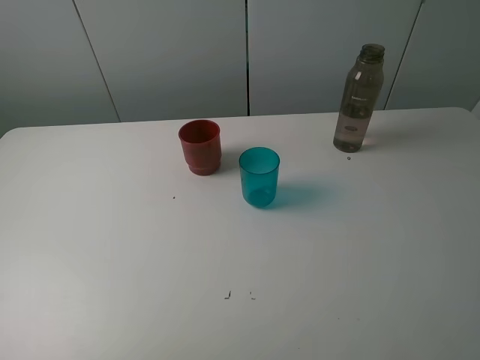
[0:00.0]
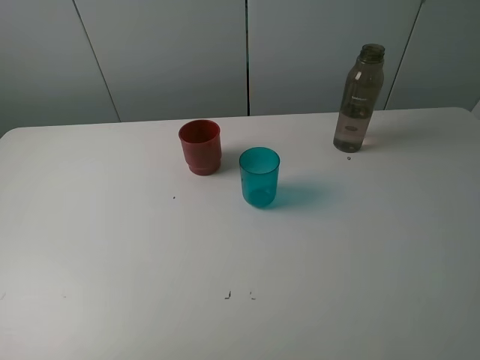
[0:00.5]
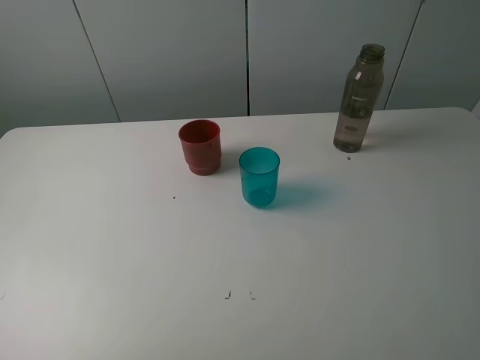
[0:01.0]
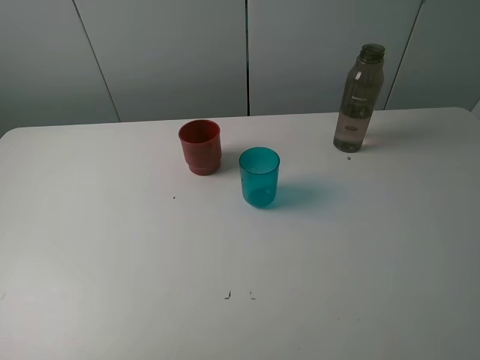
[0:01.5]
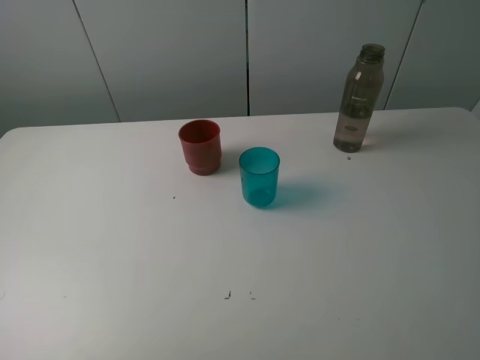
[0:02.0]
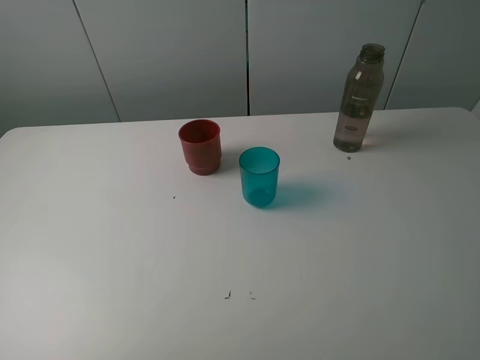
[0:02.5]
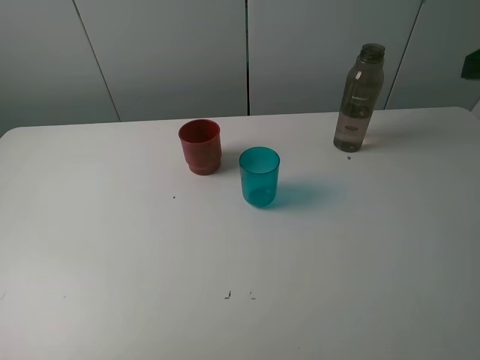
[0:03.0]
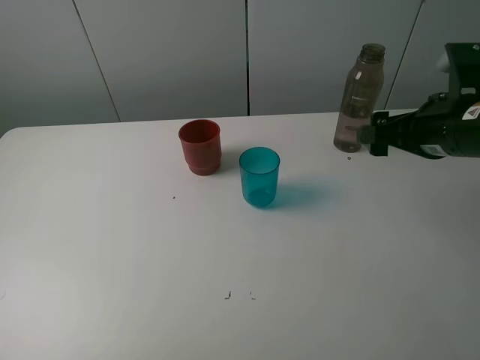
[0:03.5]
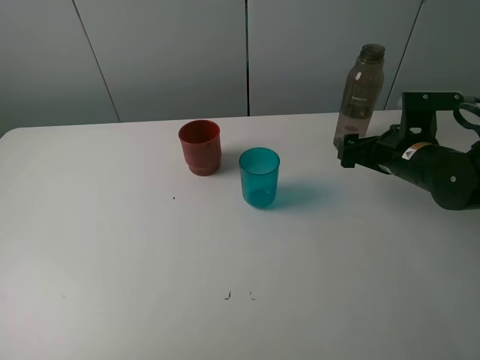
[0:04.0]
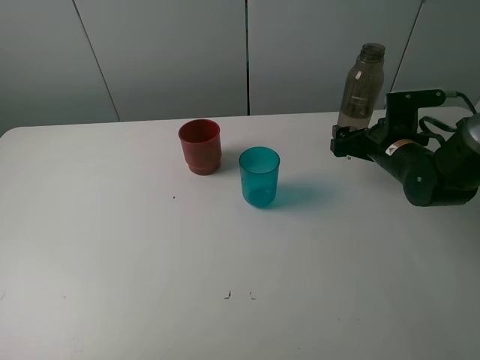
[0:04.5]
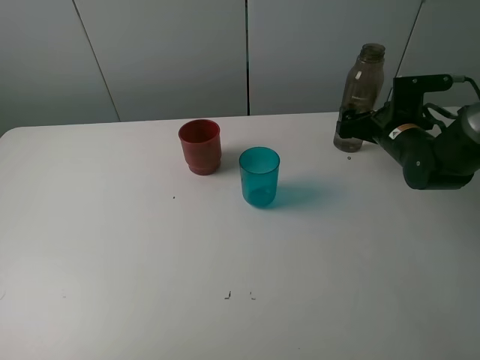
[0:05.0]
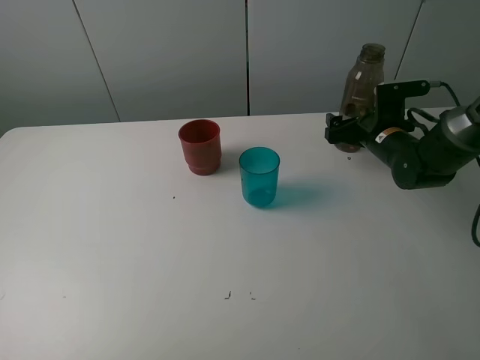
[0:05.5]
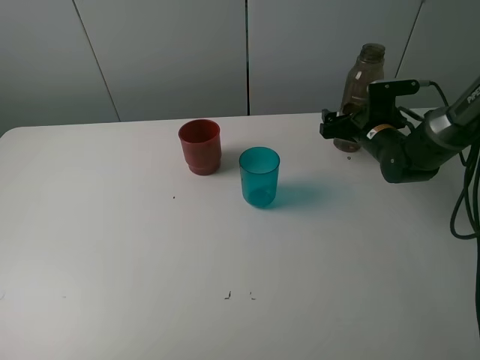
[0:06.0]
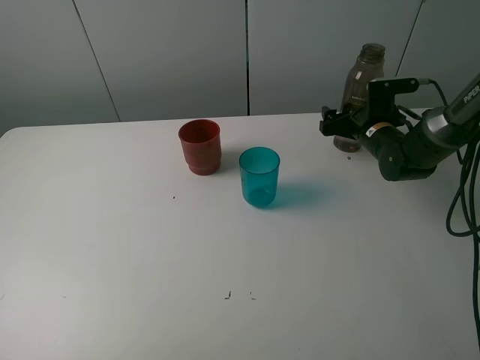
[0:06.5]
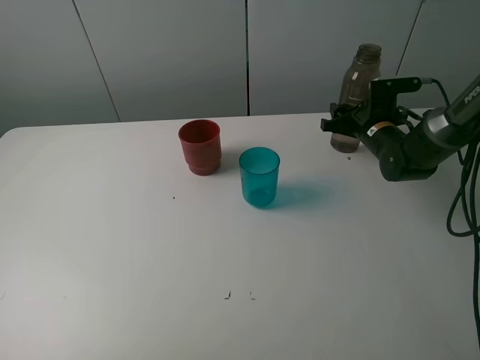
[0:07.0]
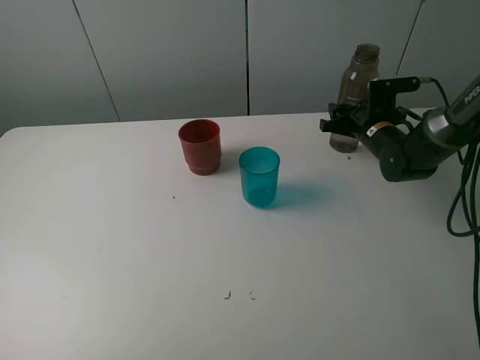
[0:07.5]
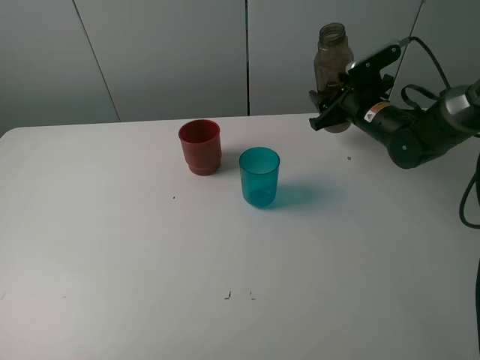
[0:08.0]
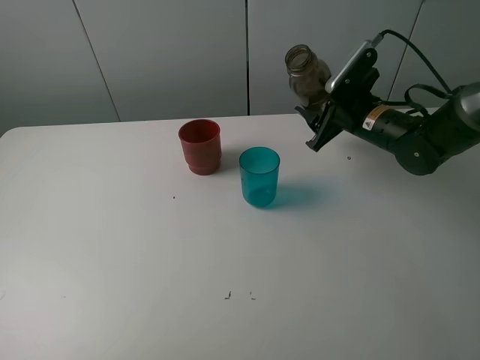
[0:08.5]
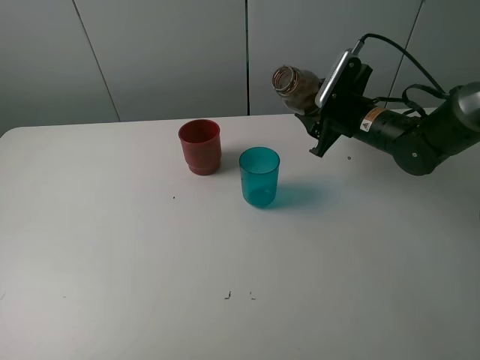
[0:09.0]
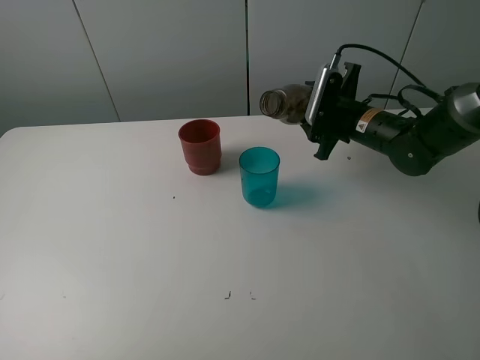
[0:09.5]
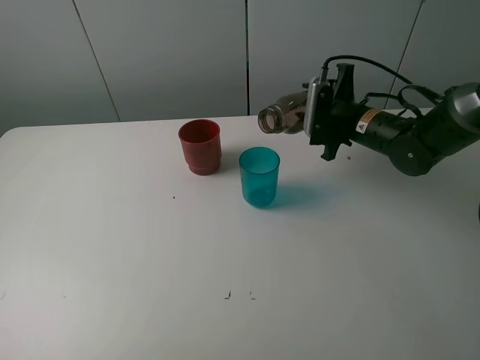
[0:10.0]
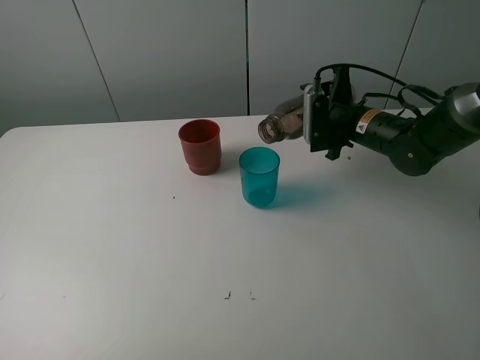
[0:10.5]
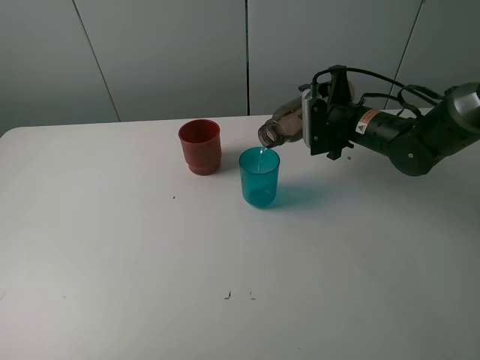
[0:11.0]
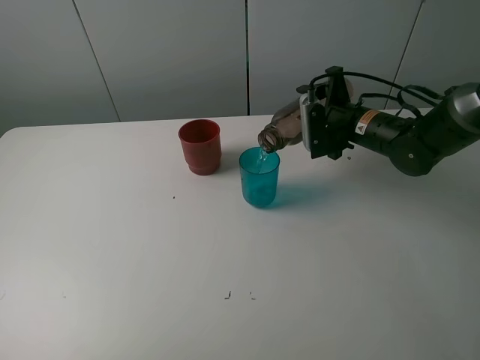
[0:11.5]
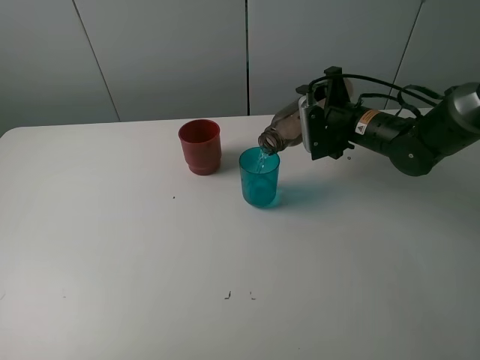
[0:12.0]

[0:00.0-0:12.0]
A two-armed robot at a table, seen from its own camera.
Task of the whole recording: pick up the bottle and pour water into the cup, then pick up the cup containing water and pour it into another cup.
Step, 0:00.0 to 0:07.0: Grasp the brown bottle with the right gripper.
0:00.0 to 0:02.0: Neither gripper changes place.
0:02.0 to 0:04.0: The right gripper heads forward and downward, covering about 35 cm.
0:04.0 to 0:06.0: The right gripper goes roughly 10 cm forward.
0:06.0 to 0:08.0: The right gripper closes its fingers.
0:10.0 to 0:12.0: The grippers stay close to where they were, moving slightly.

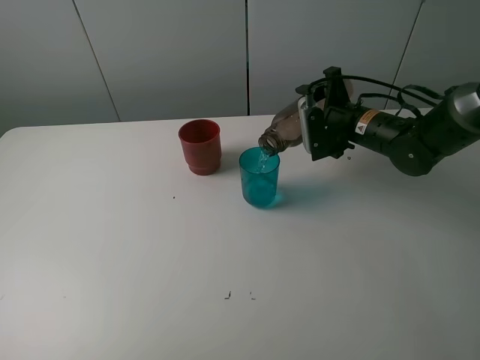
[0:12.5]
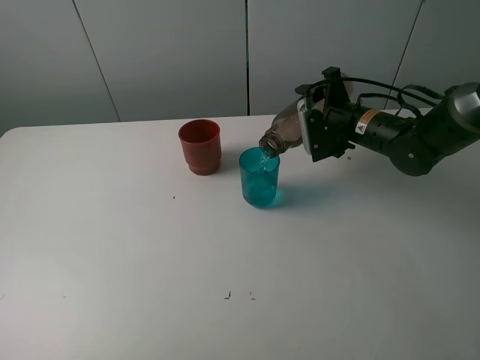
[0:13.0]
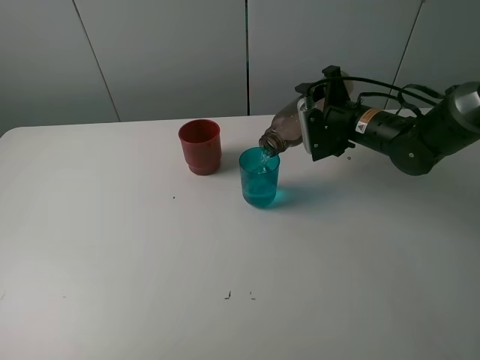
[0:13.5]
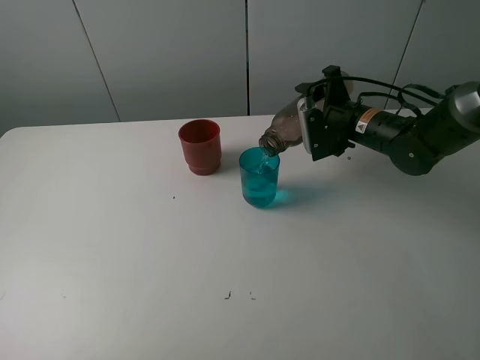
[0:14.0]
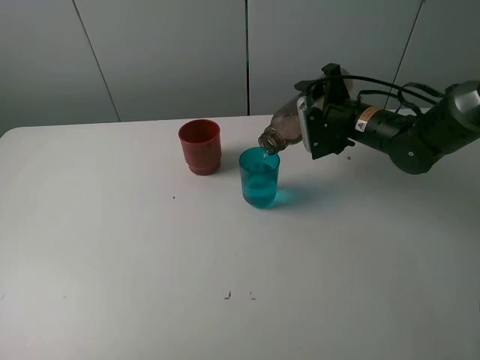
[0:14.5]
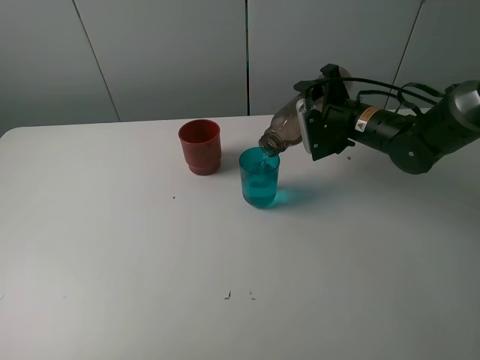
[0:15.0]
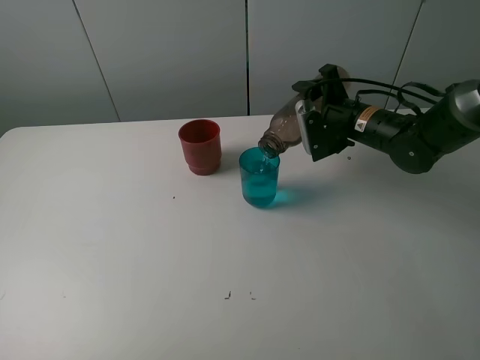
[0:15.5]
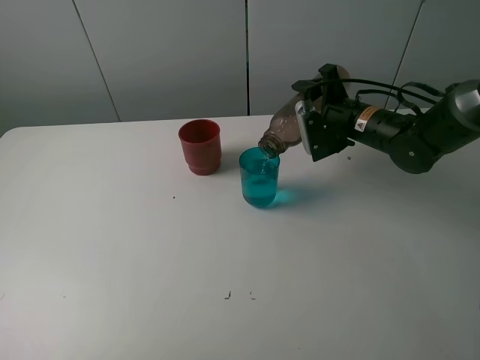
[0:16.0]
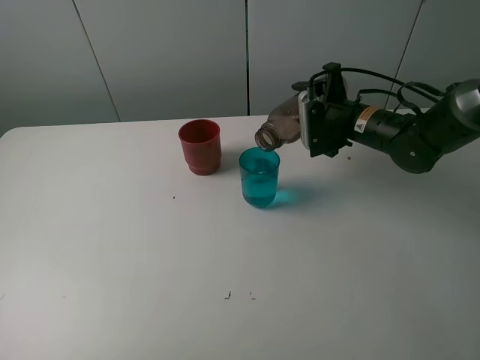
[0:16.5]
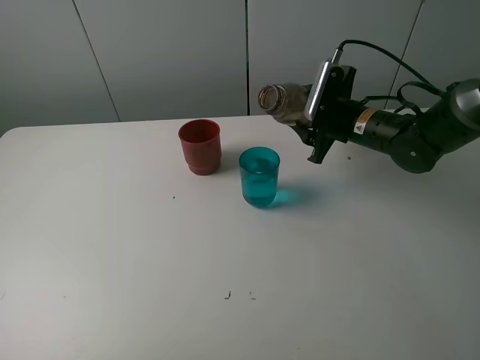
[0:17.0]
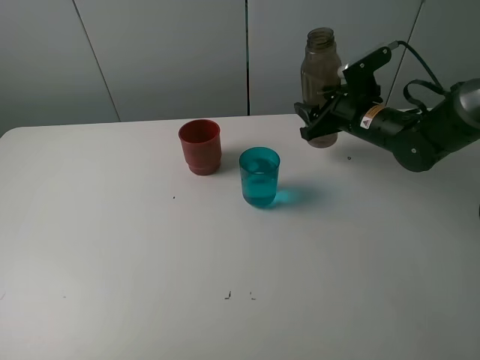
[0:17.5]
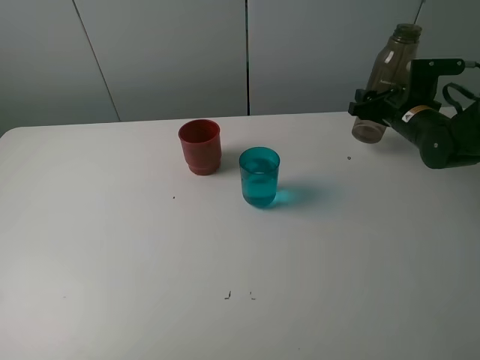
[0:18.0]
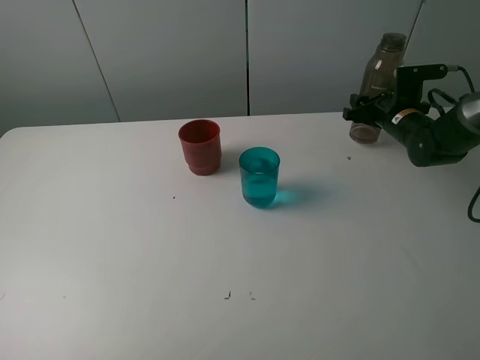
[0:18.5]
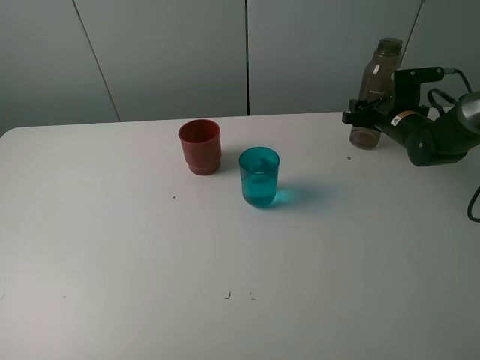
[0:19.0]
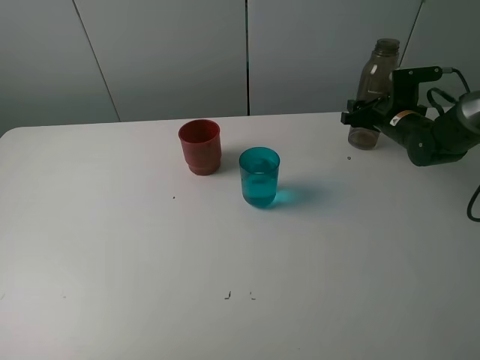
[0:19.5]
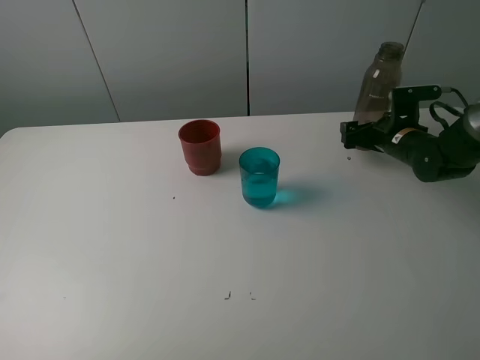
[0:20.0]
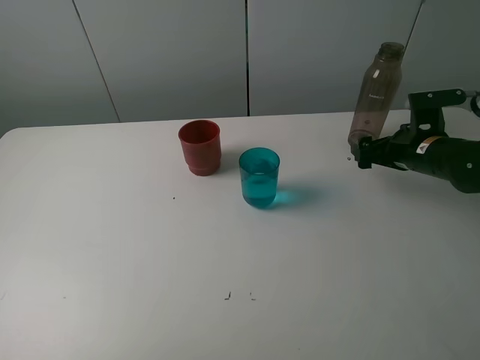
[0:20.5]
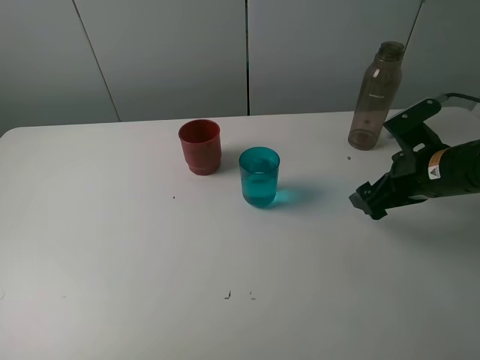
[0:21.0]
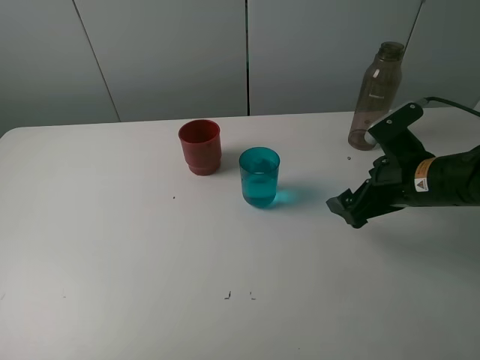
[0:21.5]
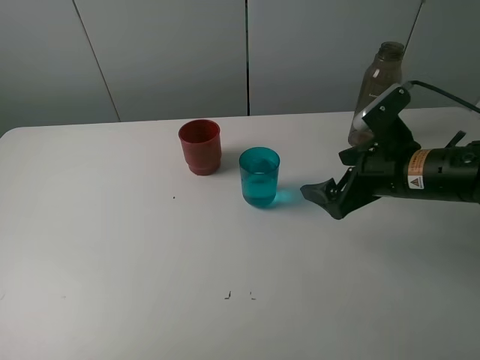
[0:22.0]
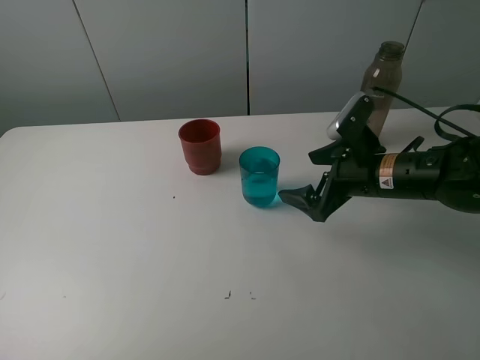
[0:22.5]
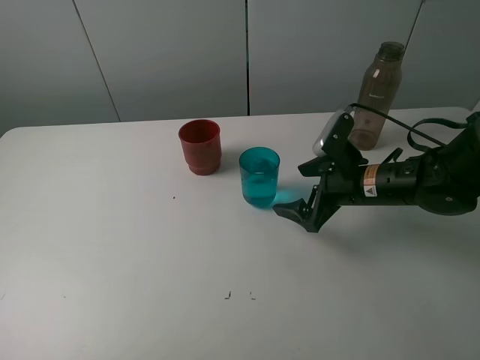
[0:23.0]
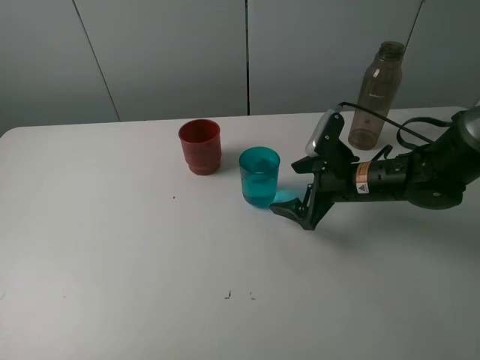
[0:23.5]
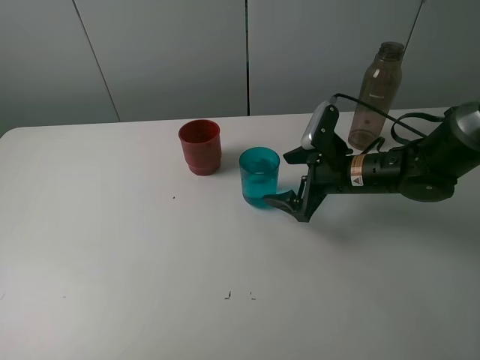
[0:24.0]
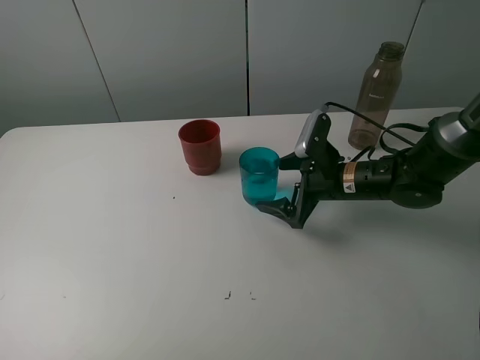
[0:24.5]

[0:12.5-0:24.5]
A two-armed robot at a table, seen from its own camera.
Task of the whole recording: pick up the bottle and pour water into the cup, then pick up the cup containing water and pour it into another cup.
Step, 0:12.5 to 0:16.5: Pour water from brown bottle to blue cup with the right gripper.
Step, 0:17.0 to 0:19.5: Place the brown bottle with the right gripper.
0:12.5 to 0:14.5: Both grippers stay put.
0:14.5 to 0:16.5: There are only small adjustments of the grippers.
0:16.5 to 0:18.5: The right gripper heads to the right and forward, covering approximately 10 cm.
0:18.5 to 0:20.5: The right gripper heads backward, covering roughly 10 cm, and opens up.
0:20.5 to 0:22.5: The right gripper goes approximately 10 cm to the left.
0:22.5 to 0:24.5: The right gripper ends up approximately 5 cm from where it was.

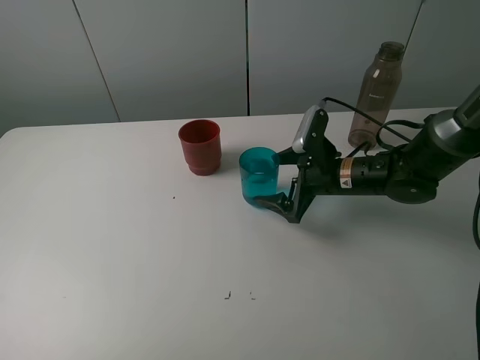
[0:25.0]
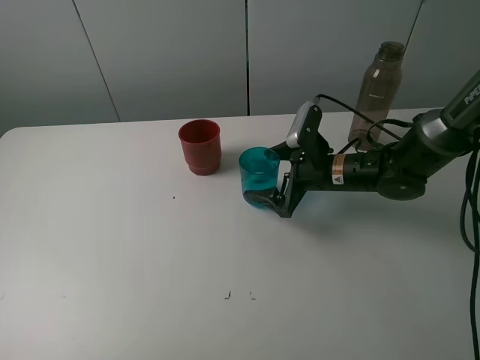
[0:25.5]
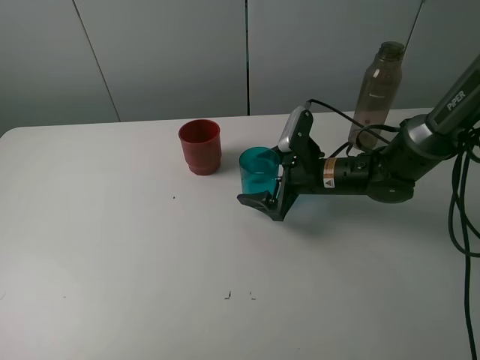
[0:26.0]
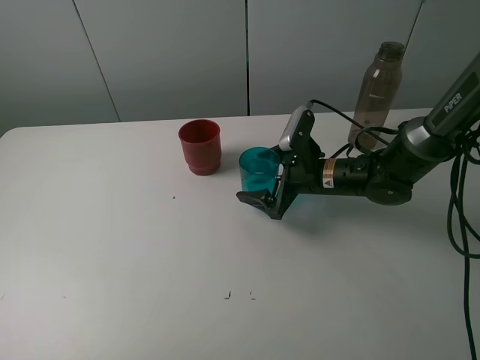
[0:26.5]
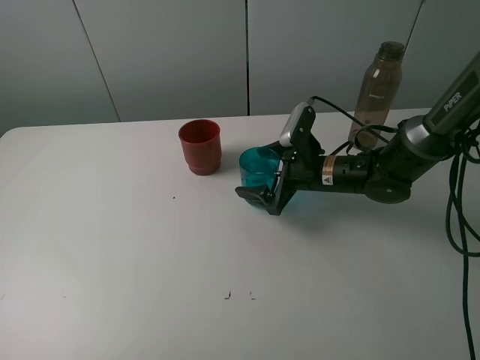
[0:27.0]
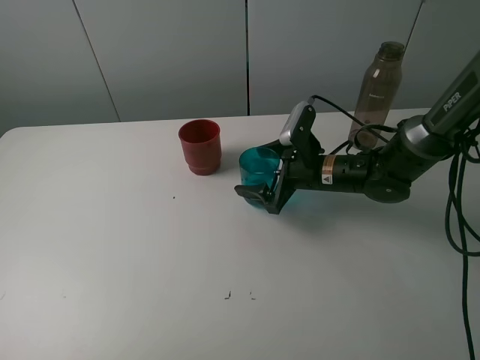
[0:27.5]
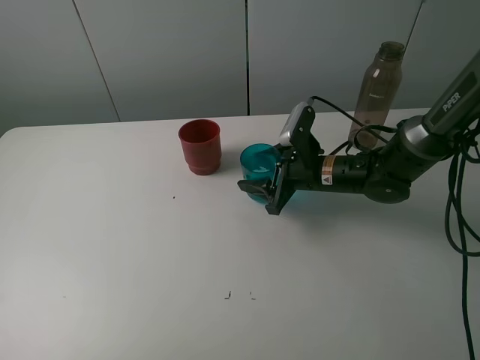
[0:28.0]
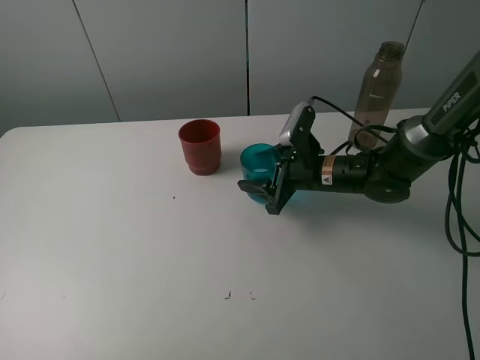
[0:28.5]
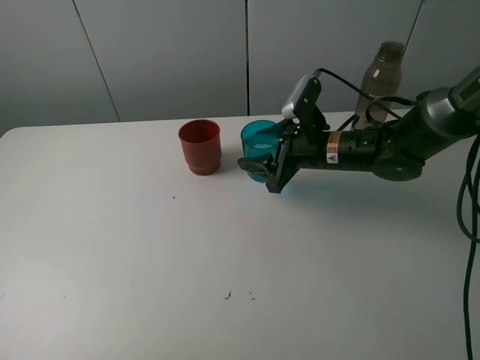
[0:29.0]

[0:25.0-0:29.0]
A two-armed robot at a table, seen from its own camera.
Task of the whole recording: pick up the bottle and pour water into the cup, then pick up the cup containing water and pour it into another cup.
Step, 0:25.0 to 0:28.0: Grasp the blue cup with the right gripper.
0:25.0 to 0:27.0: The grippers move only a little.
0:27.0 to 0:29.0: The right gripper closes its fingers.
